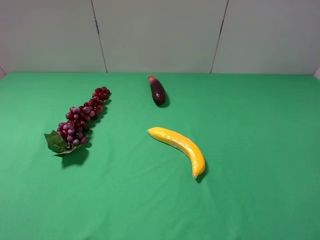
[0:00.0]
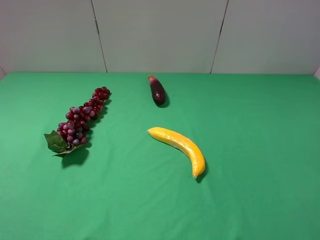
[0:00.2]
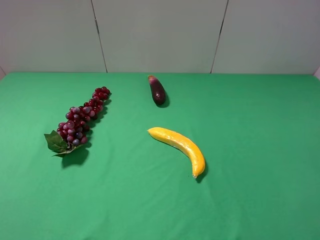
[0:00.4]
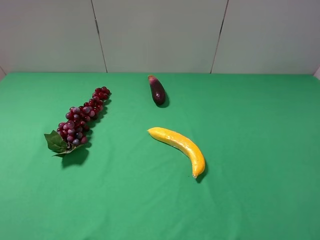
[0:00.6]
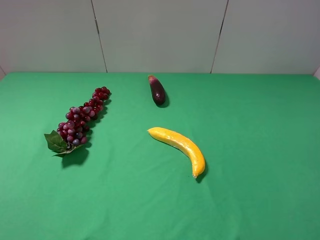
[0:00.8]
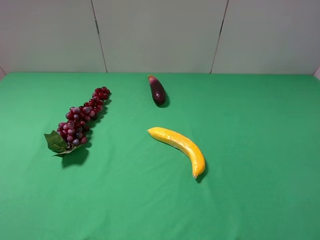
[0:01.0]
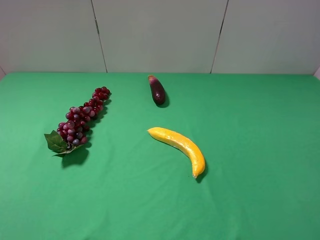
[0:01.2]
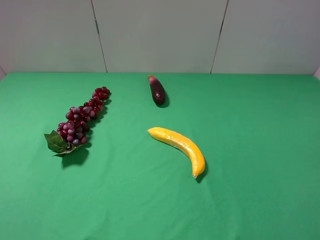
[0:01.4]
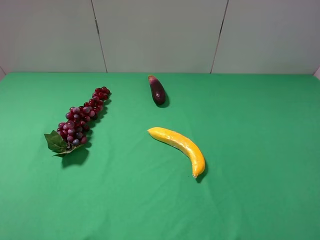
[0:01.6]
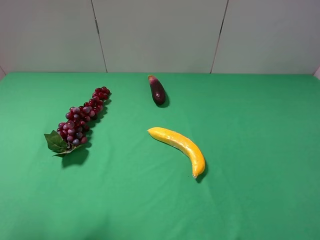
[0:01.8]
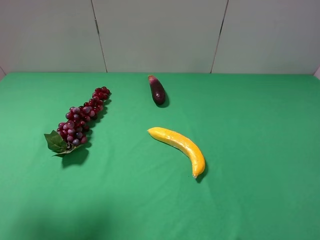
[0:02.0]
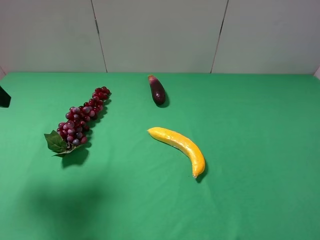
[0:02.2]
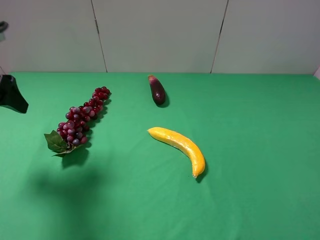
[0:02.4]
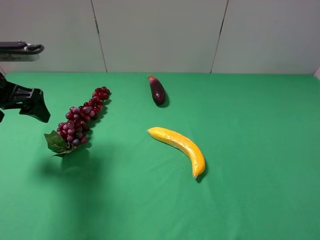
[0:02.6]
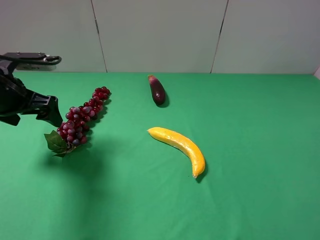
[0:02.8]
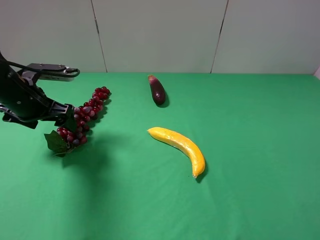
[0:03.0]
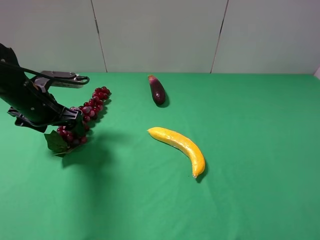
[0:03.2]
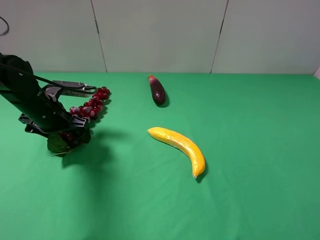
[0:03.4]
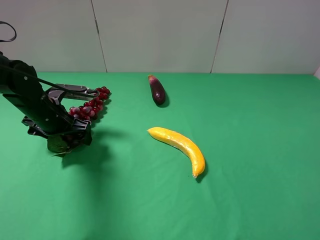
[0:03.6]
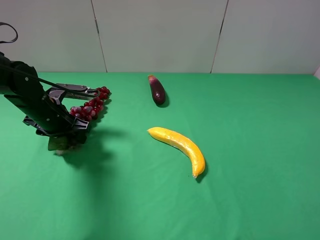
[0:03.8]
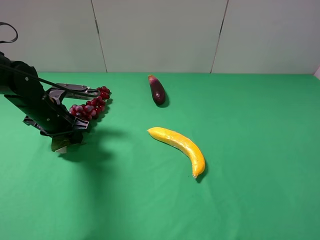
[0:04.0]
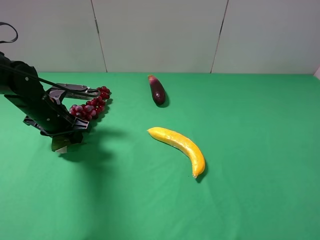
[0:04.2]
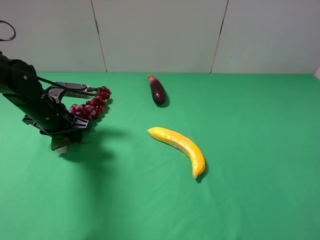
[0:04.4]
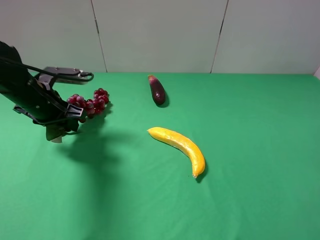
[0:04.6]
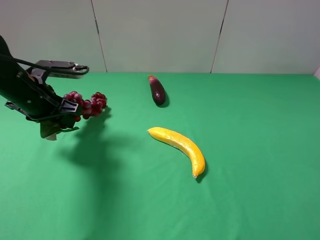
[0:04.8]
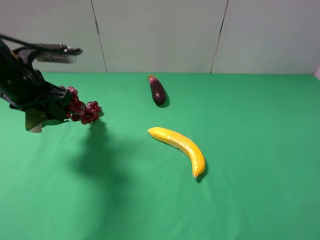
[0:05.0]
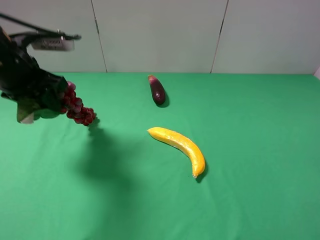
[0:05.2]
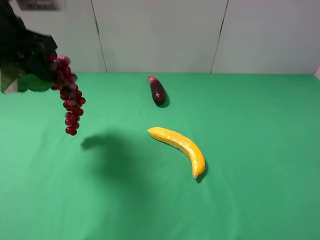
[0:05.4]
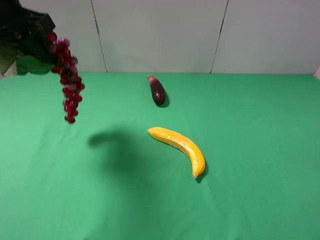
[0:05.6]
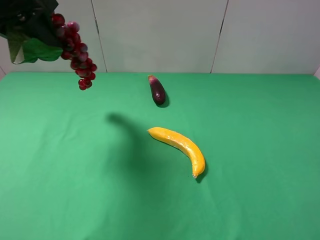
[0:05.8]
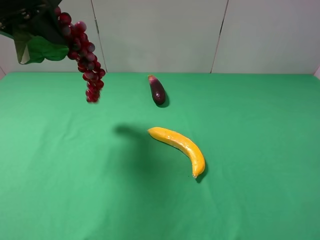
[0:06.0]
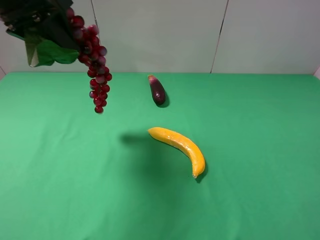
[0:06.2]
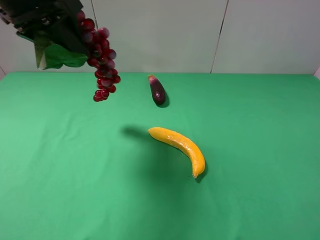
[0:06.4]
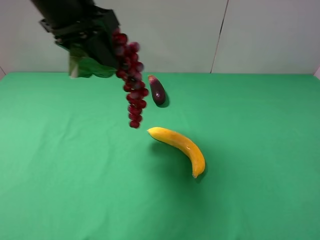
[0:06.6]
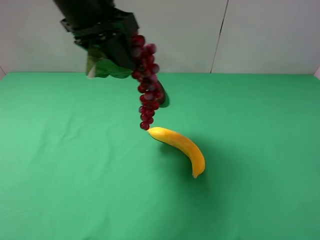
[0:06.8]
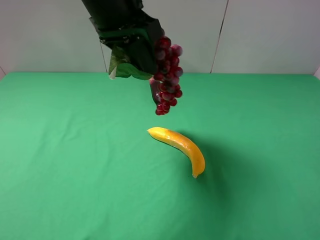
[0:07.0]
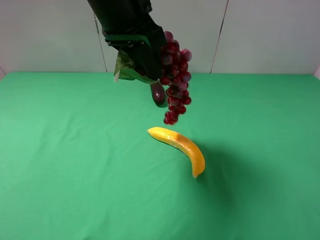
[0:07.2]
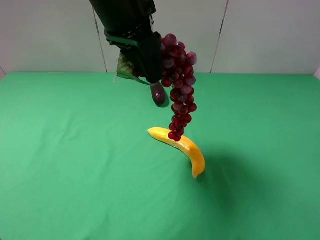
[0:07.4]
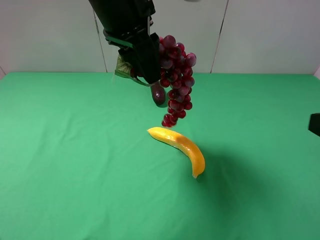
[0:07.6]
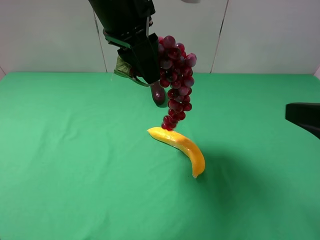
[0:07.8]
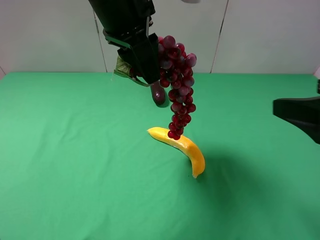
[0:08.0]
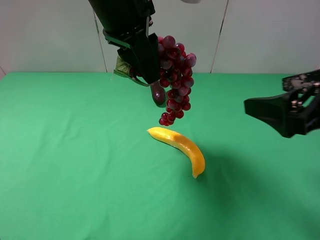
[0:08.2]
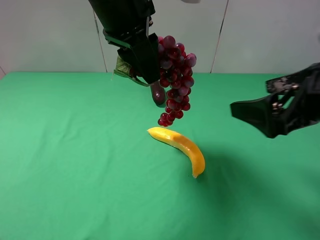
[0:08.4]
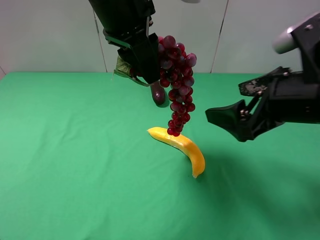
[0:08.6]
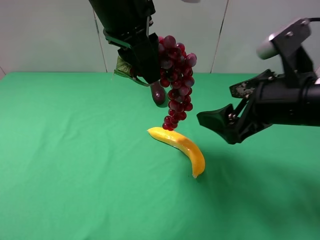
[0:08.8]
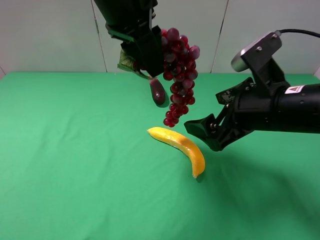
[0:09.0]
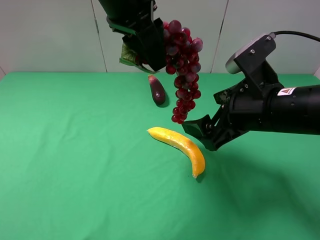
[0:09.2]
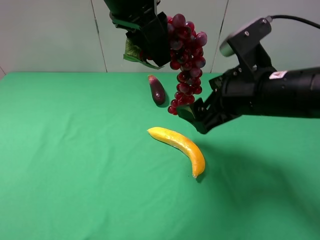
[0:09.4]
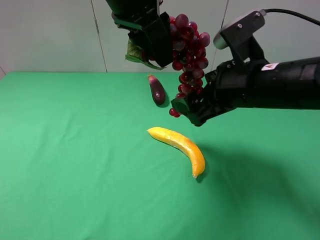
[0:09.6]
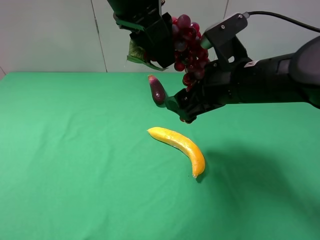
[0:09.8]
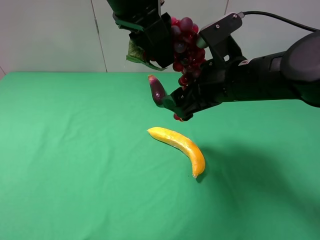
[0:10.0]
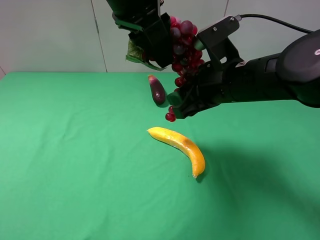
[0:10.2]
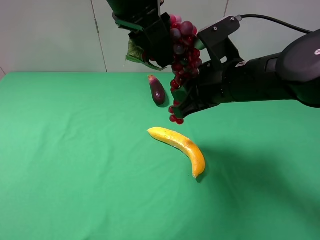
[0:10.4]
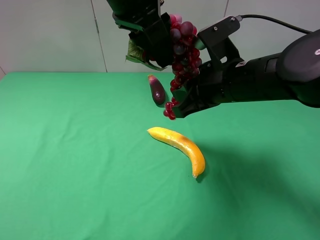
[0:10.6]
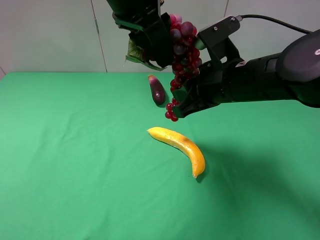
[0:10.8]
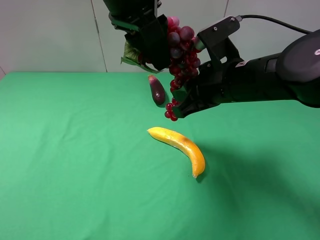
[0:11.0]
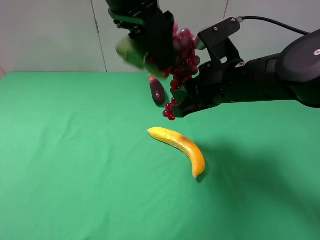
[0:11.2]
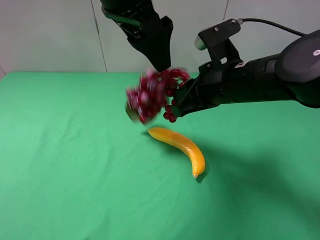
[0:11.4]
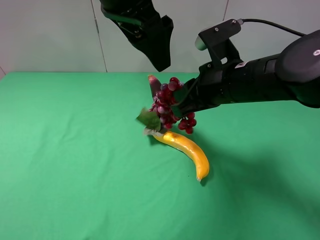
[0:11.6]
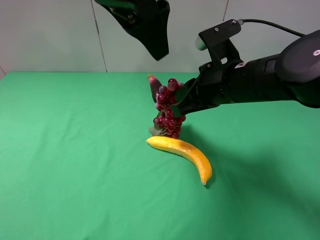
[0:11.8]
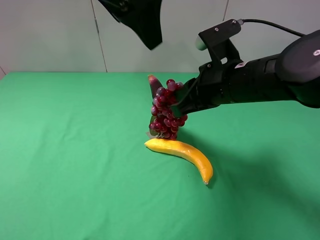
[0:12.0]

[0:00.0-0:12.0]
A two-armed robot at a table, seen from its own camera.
Task of the whole recording: use the left gripper to pick up the item and transfer it from the left gripper to the right gripper.
Step, 0:00.0 to 0:03.8: Use the left gripper to grab the grape on the left side of the table.
Step, 0:04.0 to 0:11.6: Pass the grape to the right gripper.
0:01.6 to 0:03.0: The left gripper is displaced forward and downward by about 30 cm.
0:03.0 to 0:04.4: The left gripper closes its fingers.
0:04.4 to 0:06.0: The left gripper moves upward, some 25 cm.
0:06.0 to 0:07.6: The right gripper goes roughly 5 cm forward; the left gripper goes roughly 15 cm to the right.
0:07.6 to 0:09.0: The right gripper heads forward, to the left and downward, covering about 15 cm.
0:09.0 to 0:10.4: The right gripper shifts about 5 cm forward, and closes up.
0:10.4 to 0:12.0: The left gripper ends up some 5 cm from where it was, and opens.

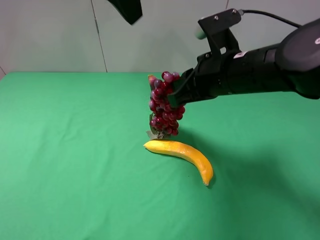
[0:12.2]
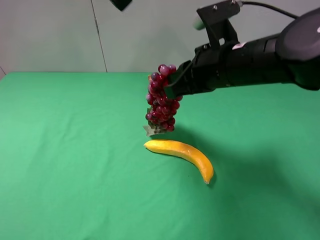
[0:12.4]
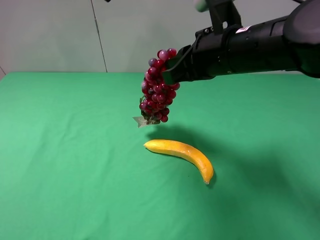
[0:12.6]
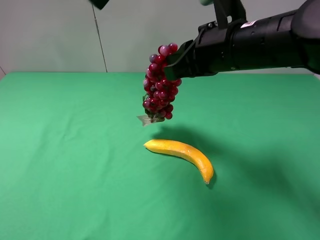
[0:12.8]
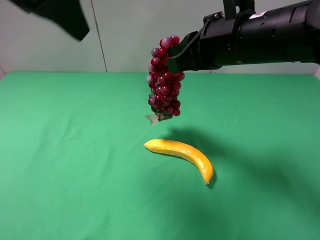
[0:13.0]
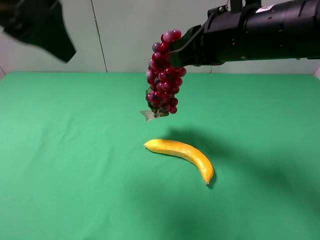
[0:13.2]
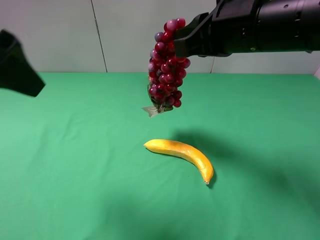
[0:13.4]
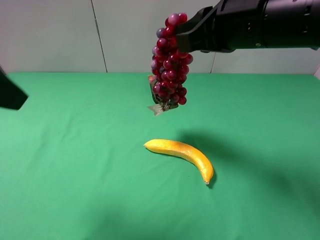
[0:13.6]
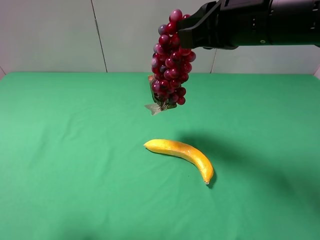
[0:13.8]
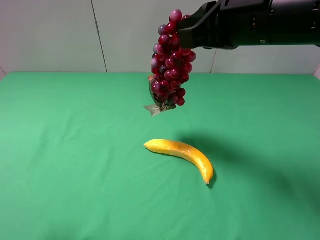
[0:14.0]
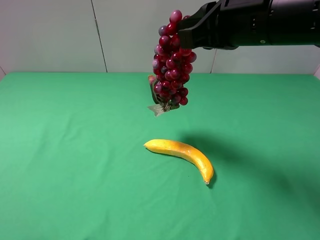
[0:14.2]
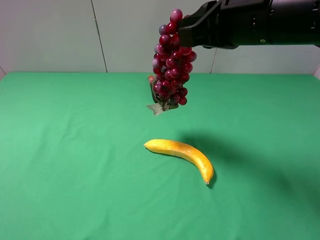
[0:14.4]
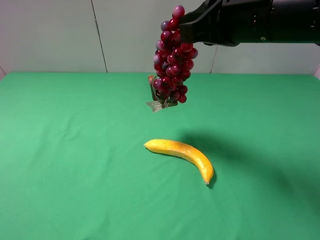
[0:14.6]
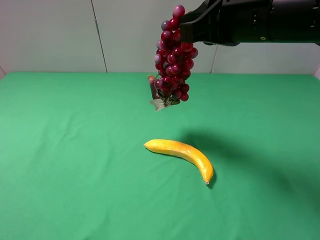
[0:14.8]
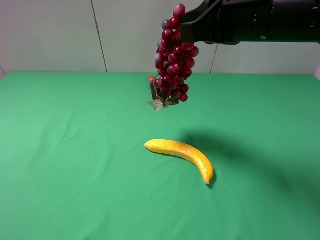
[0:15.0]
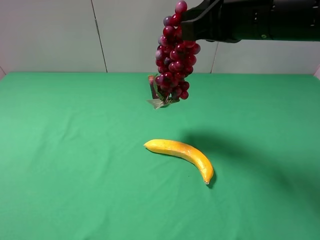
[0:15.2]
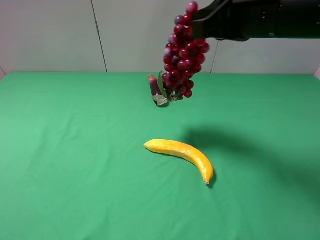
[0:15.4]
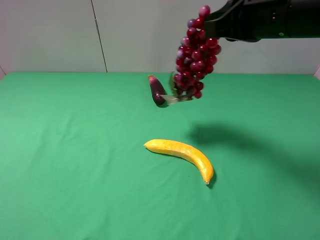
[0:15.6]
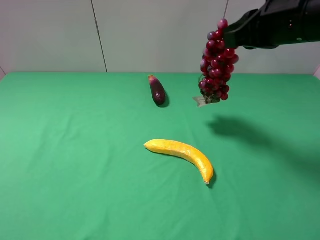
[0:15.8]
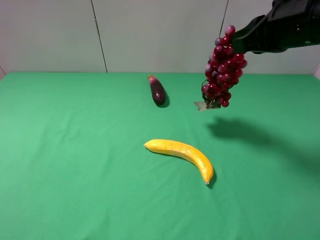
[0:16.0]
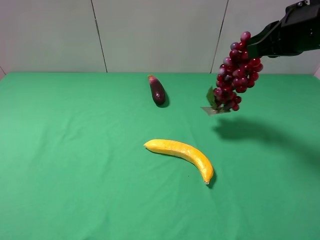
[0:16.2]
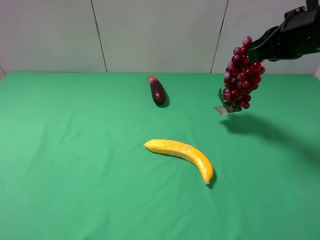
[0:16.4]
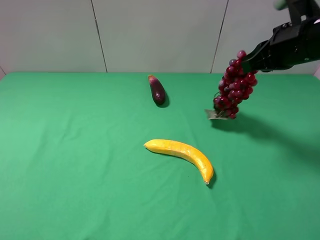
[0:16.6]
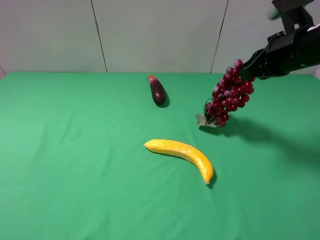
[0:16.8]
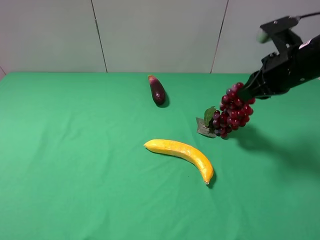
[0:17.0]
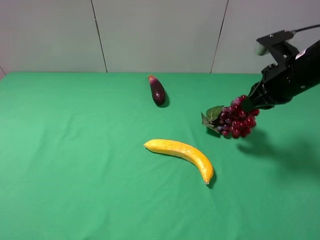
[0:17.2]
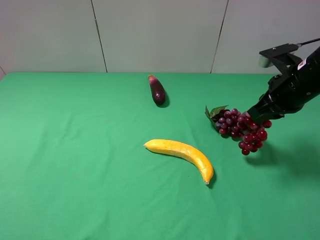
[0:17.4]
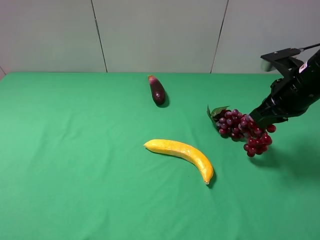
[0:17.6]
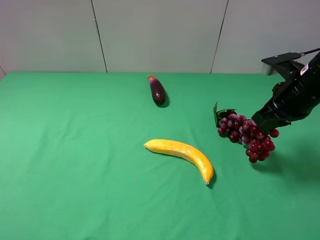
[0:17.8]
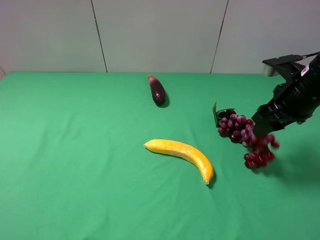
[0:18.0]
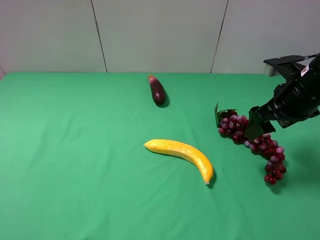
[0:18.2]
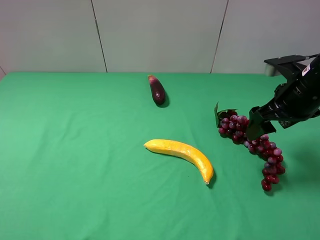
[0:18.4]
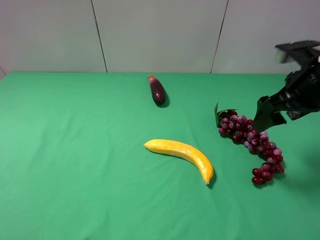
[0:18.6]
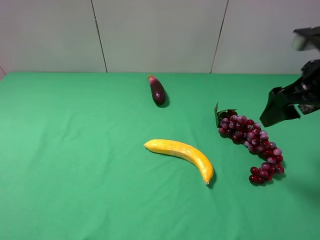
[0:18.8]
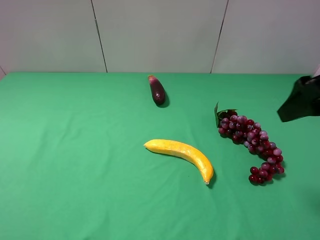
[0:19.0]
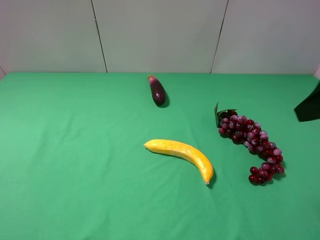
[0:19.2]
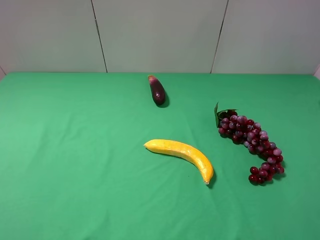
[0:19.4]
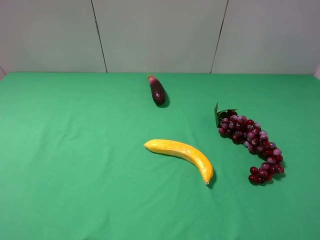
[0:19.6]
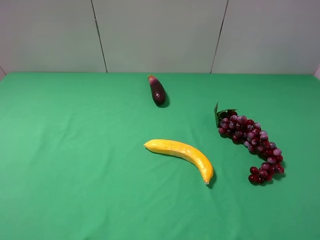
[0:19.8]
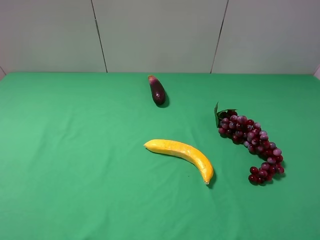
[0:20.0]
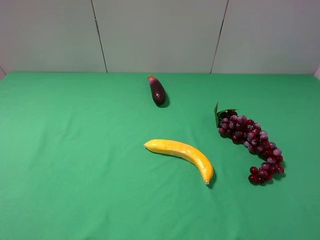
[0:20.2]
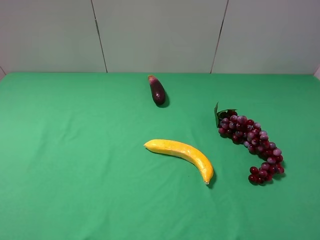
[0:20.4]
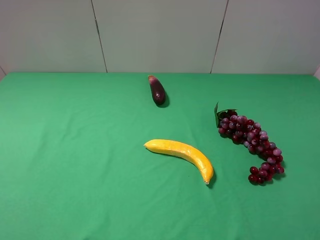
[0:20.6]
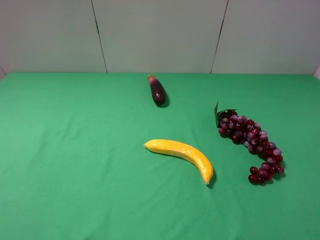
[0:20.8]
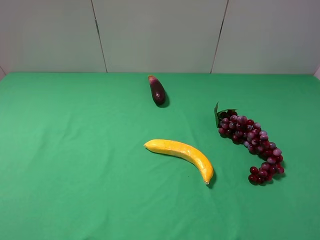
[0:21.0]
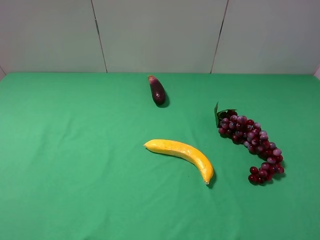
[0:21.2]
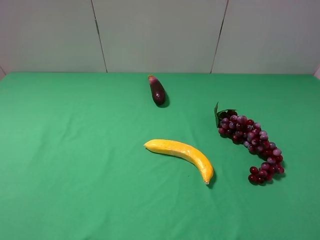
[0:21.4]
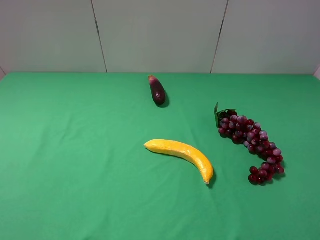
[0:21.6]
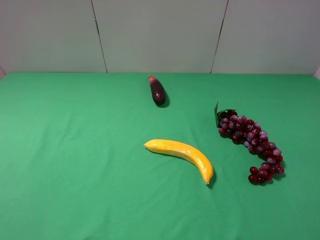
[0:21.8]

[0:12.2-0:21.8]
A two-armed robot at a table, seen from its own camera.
Task of the whole recording: use the left gripper to pick up the item and transfer it from the left gripper to the right gripper.
Step, 0:12.2 to 0:18.4: The right gripper places grape on the right side of the table.
0:12.2 to 0:13.8: The left gripper goes roughly 25 cm backward, to the left and downward. Meanwhile the right gripper shifts approximately 10 cm upward.
0:13.8 to 0:15.4: The left gripper shifts roughly 15 cm backward, to the left and downward.
0:15.4 to 0:17.0: The right gripper travels downward and to the right by approximately 10 cm.
0:17.0 to 0:18.6: The right gripper opens its fingers.
0:18.6 to 0:20.2: The right gripper shifts roughly 20 cm backward.
